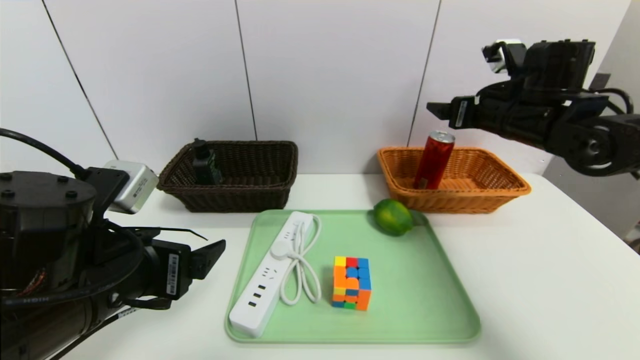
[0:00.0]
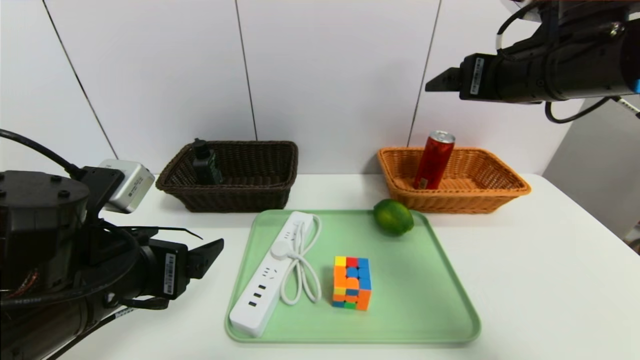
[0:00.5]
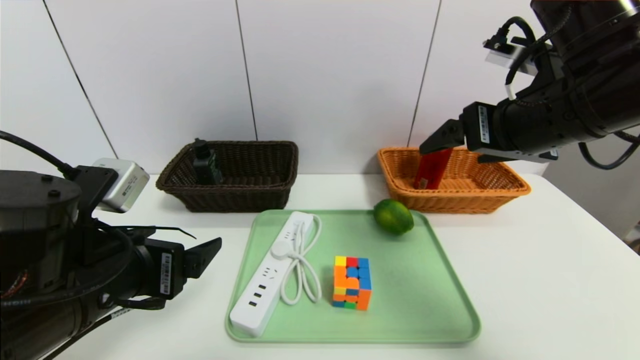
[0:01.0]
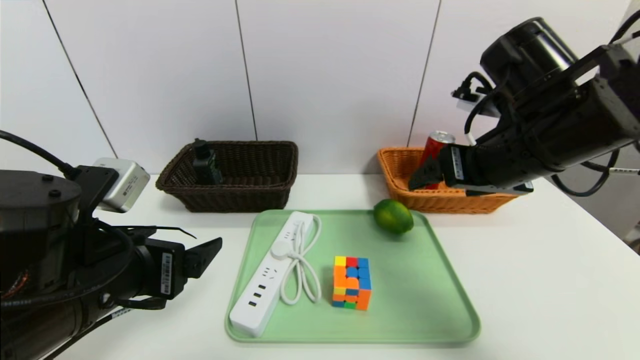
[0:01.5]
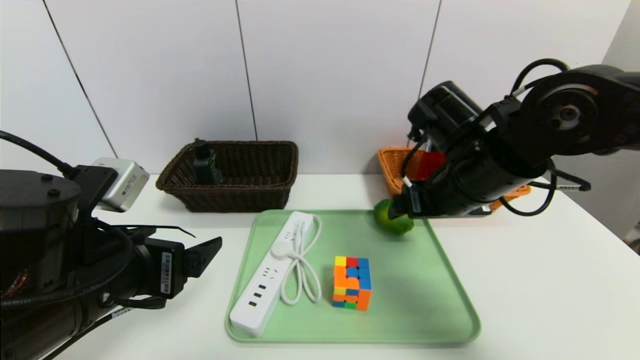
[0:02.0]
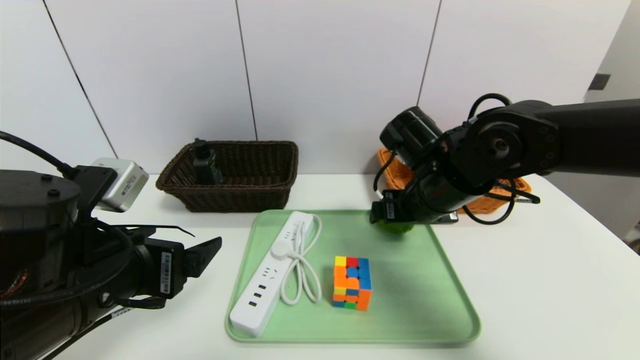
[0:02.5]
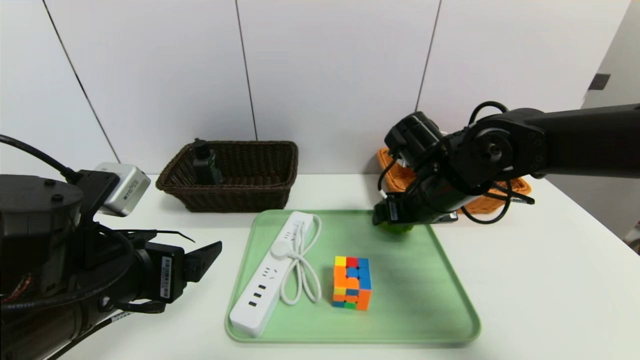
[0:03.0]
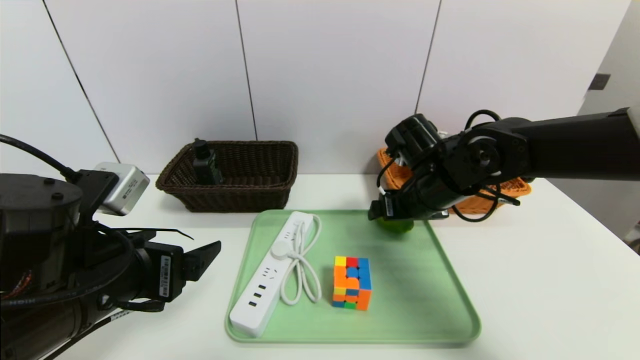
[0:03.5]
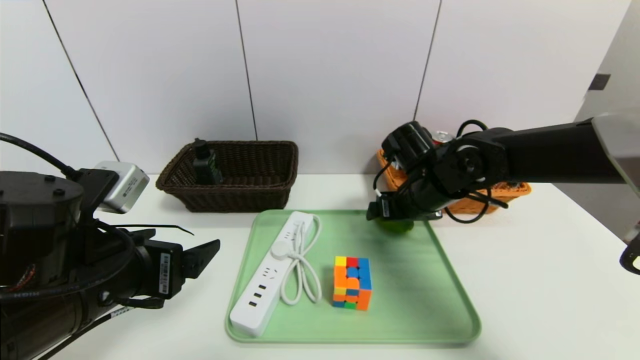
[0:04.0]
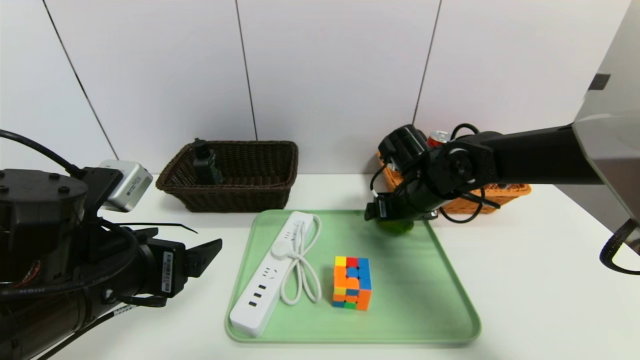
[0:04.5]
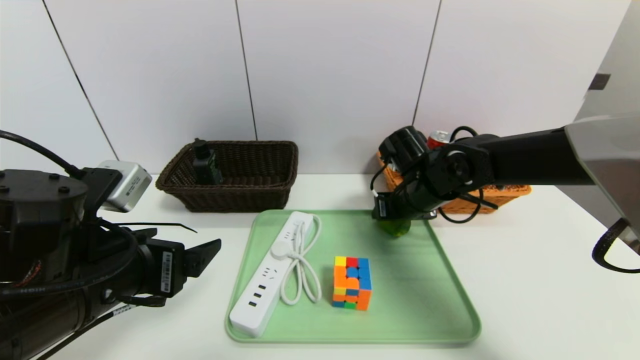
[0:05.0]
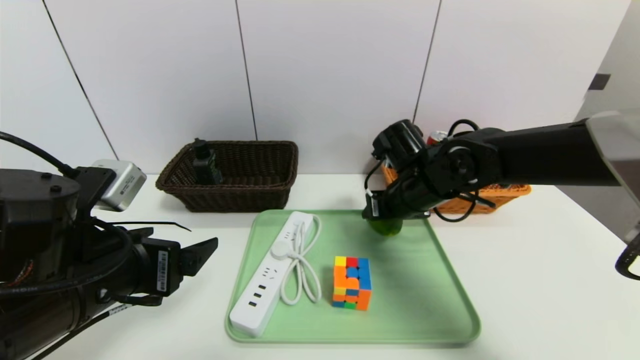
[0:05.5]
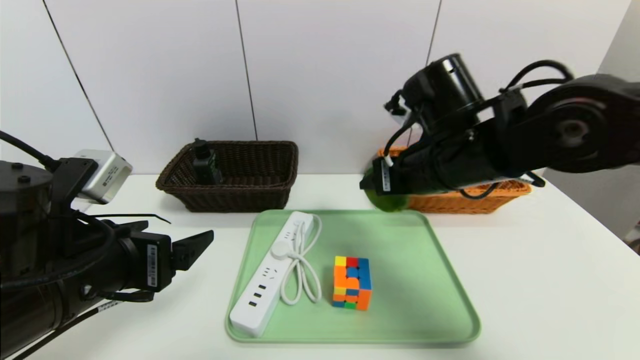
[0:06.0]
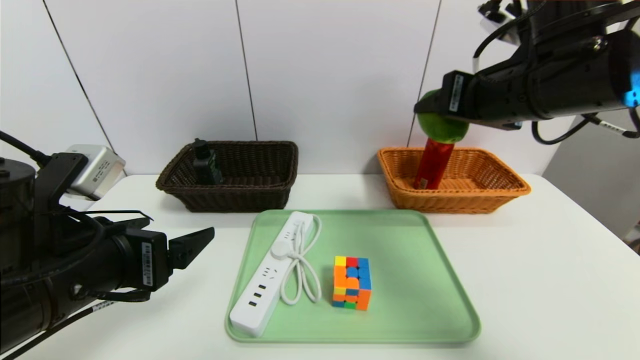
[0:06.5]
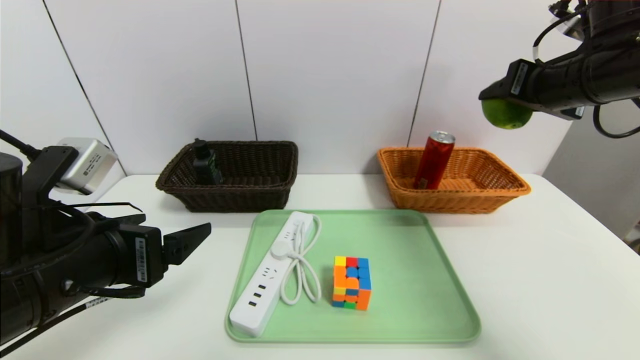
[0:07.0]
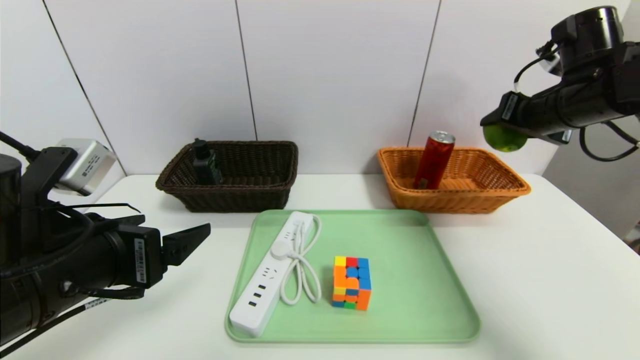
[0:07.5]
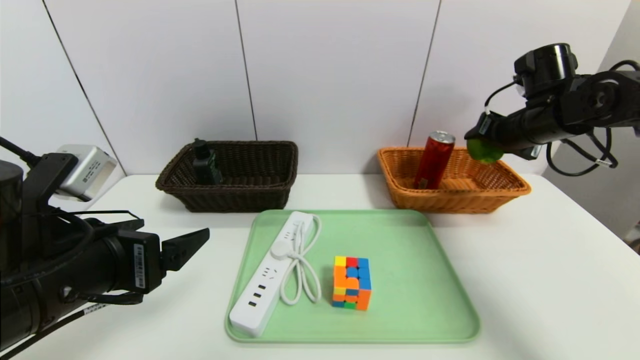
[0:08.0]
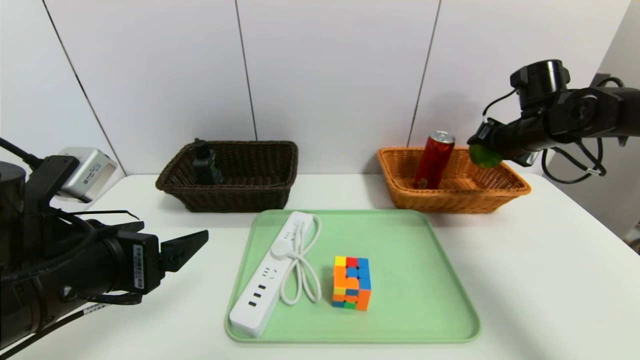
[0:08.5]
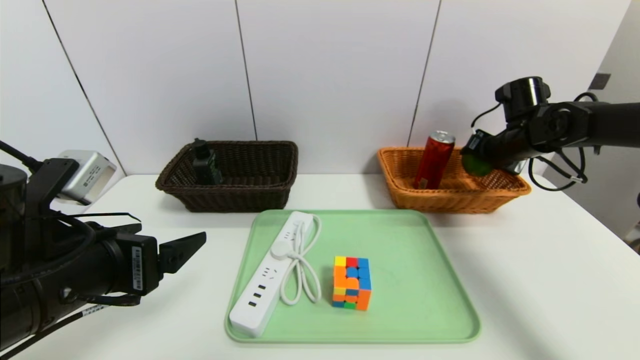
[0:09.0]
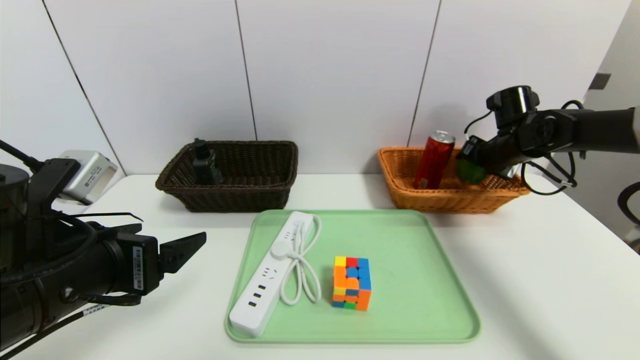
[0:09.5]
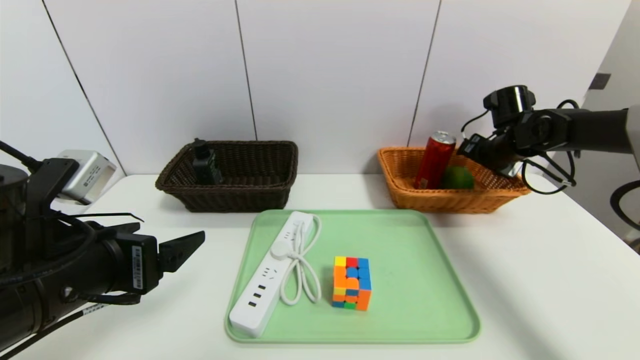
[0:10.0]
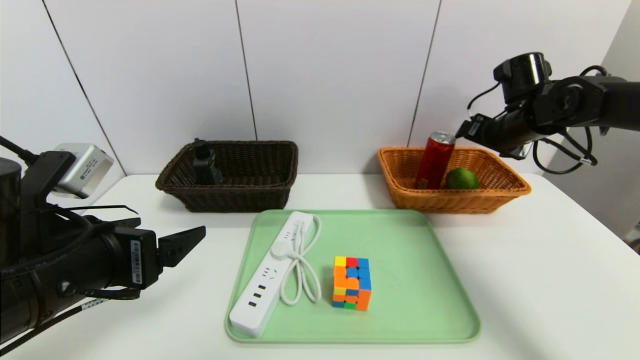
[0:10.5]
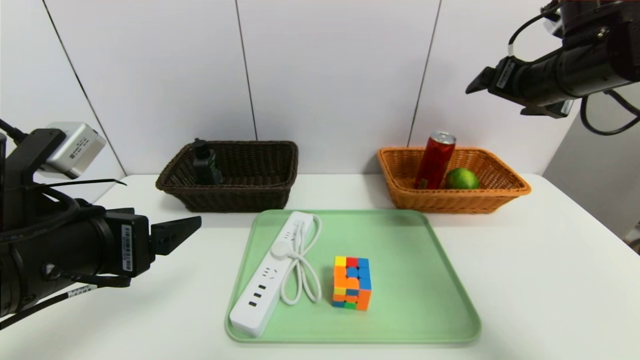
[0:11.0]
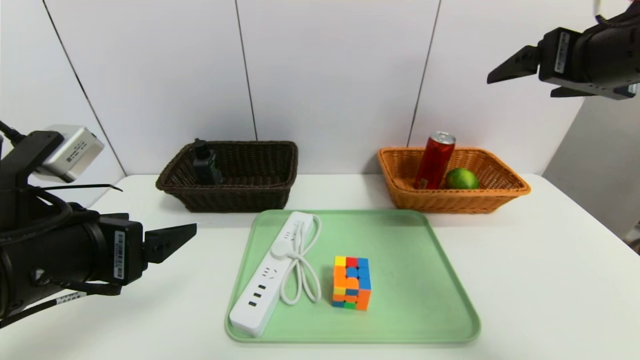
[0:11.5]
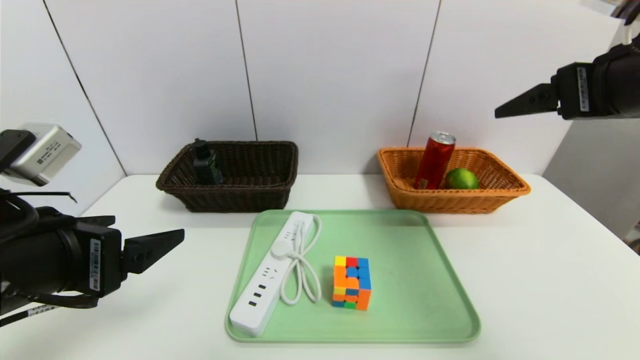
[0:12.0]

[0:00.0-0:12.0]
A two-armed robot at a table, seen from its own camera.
Task of the whole recording: place the food in the right basket with the right gripper, and place the non food items in the left basket with the left gripper.
Step, 0:00.0 to 0:10.0: Grasp the lemon and put it in the right basket.
0:00.0 to 0:02.0: The right gripper goes some 15 cm to the left and backward.
0:02.0 to 0:04.0: The right gripper travels forward and downward by some 10 cm.
0:04.0 to 0:06.0: The right gripper moves upward and backward, about 10 cm, and closes its fingers.
0:06.0 to 0:08.0: The right gripper goes approximately 20 cm to the right and forward.
0:08.0 to 0:10.0: The right gripper heads downward and forward, covering some 10 cm, and opens up.
0:10.0 to 0:12.0: The right gripper heads backward and upward, covering about 30 cm.

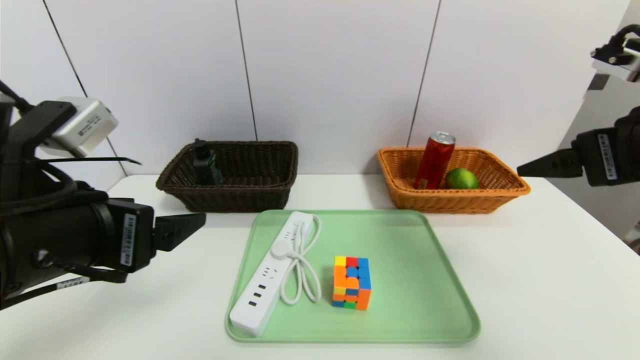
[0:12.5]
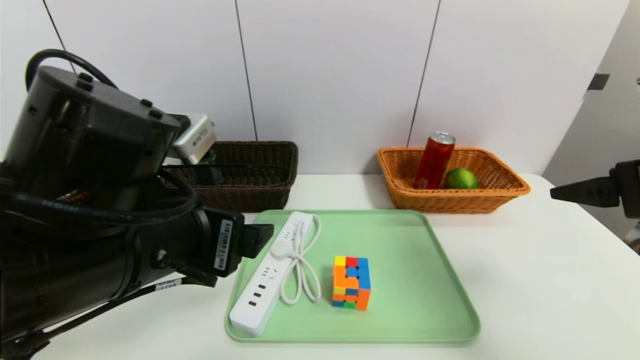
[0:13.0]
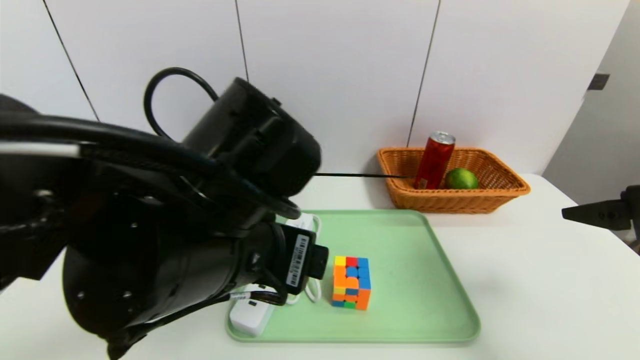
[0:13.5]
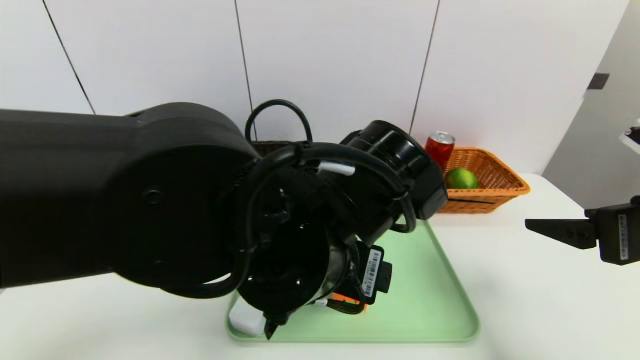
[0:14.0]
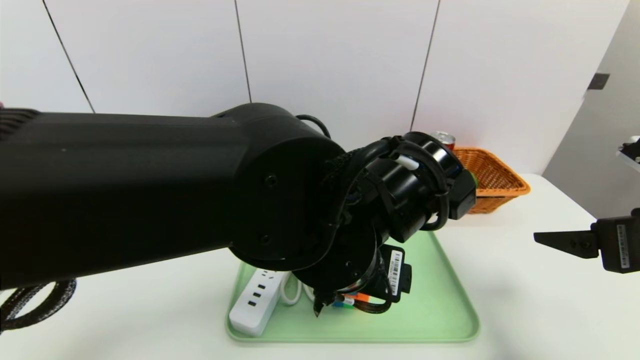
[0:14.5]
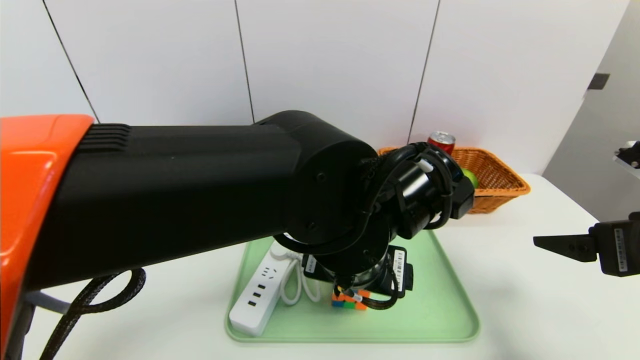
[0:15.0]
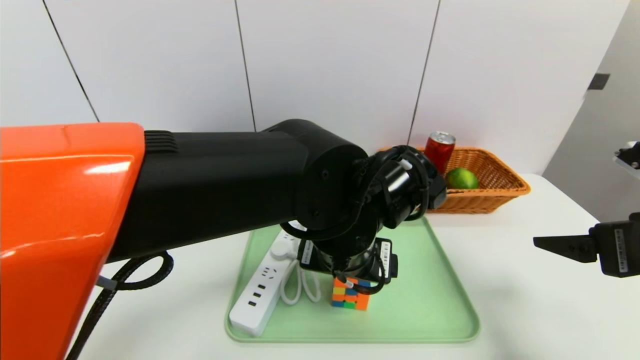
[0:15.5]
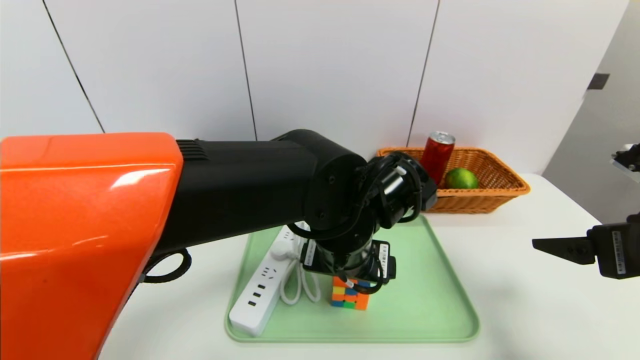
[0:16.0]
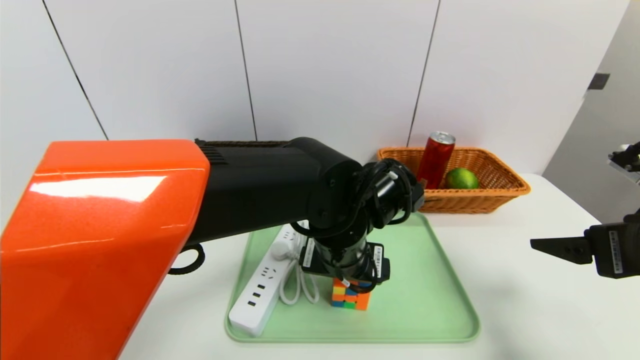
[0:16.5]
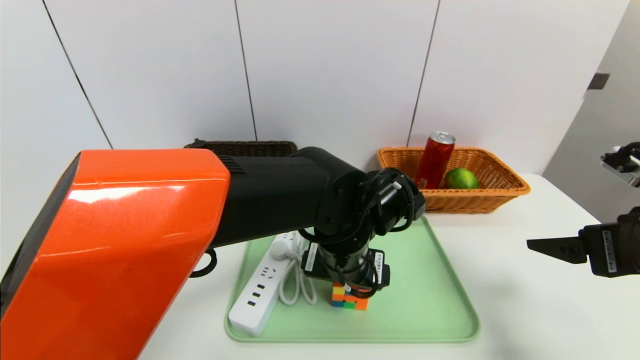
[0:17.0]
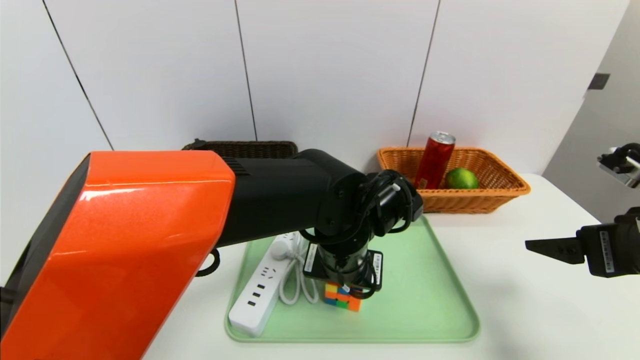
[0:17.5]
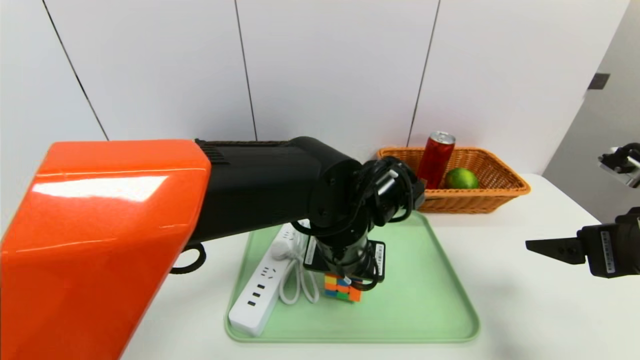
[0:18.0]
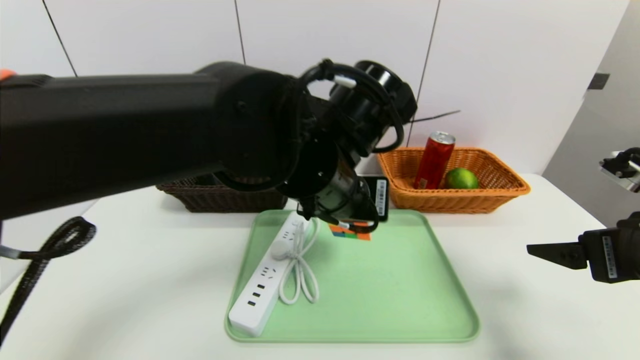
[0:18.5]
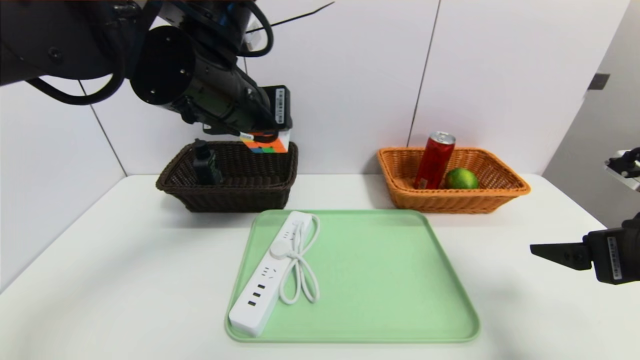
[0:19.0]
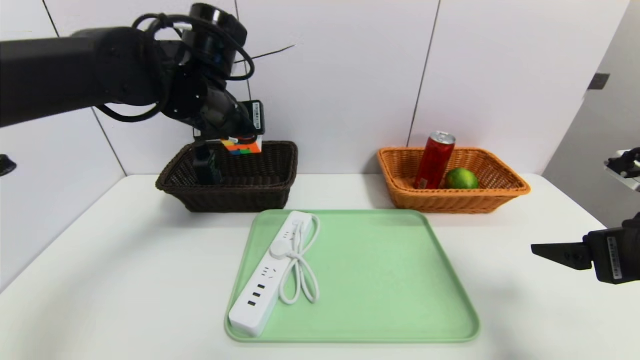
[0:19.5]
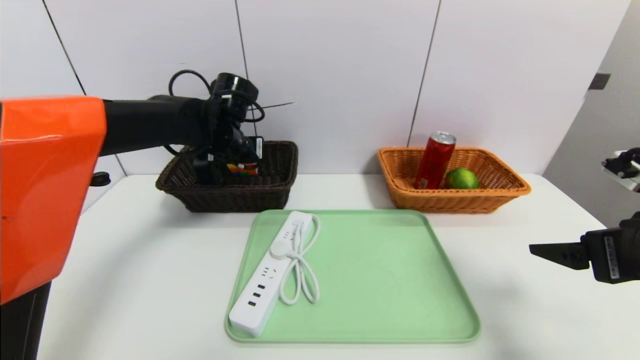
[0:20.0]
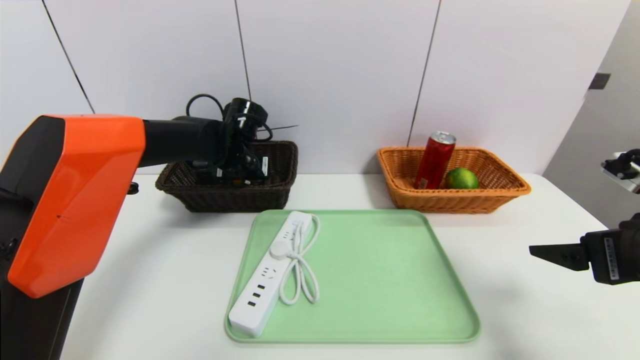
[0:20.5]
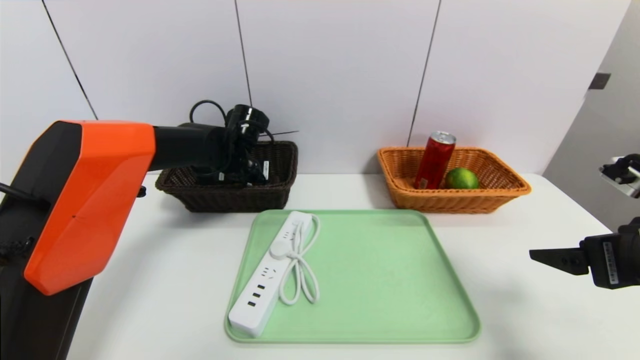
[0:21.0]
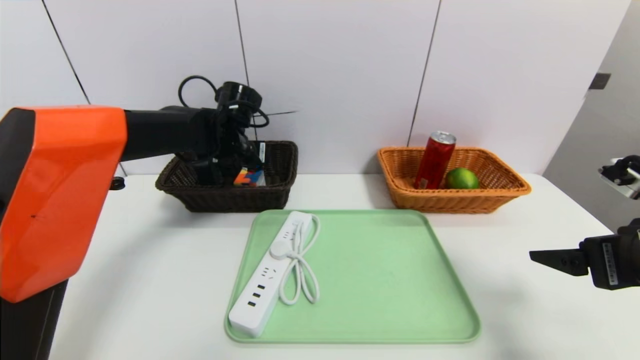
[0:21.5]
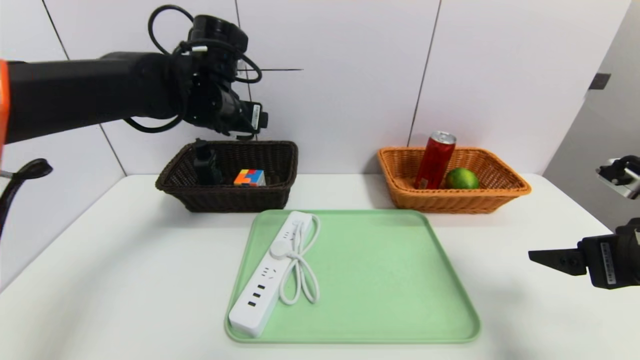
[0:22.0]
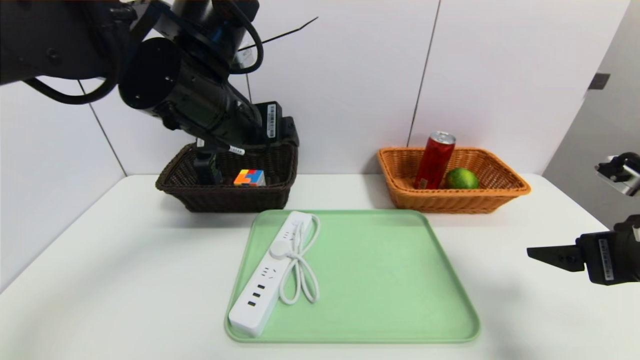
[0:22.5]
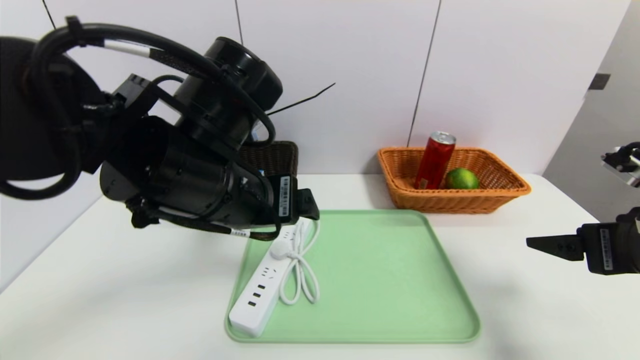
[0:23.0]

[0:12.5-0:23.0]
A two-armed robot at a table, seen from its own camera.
Task of the whole recording: place the food in the right basket with the right gripper, and place the non food items in the left basket with the left gripper.
Step, 0:12.5 to 0:21.5: Grasp the rubiks cube and put it in the left basket.
0:12.5 to 0:14.5: The right gripper moves downward, some 10 cm; the left gripper heads to the right, covering about 20 cm.
0:14.5 to 0:16.5: The left gripper heads forward and downward, covering about 10 cm.
0:16.5 to 0:19.0: The left gripper goes roughly 20 cm upward and to the left, and closes up.
0:19.0 to 0:21.0: The left gripper shifts approximately 25 cm forward and downward.
0:21.0 to 0:23.0: The left gripper shifts about 25 cm backward and upward.
